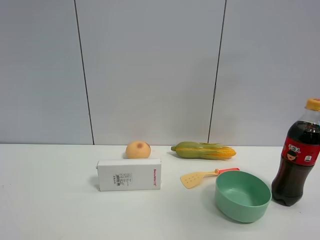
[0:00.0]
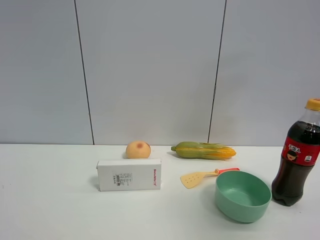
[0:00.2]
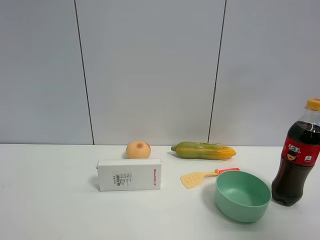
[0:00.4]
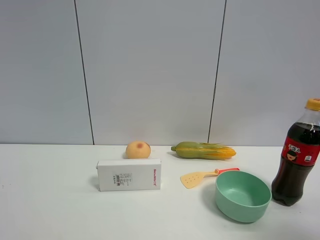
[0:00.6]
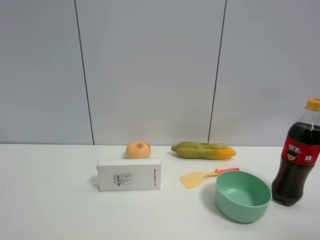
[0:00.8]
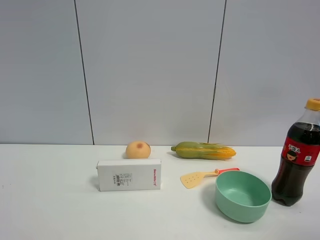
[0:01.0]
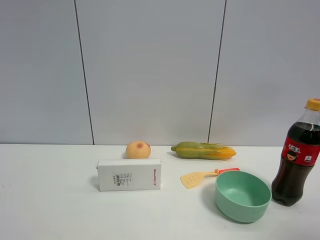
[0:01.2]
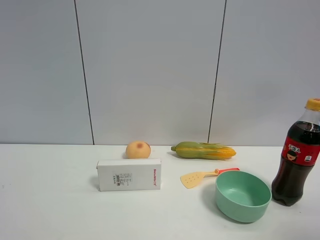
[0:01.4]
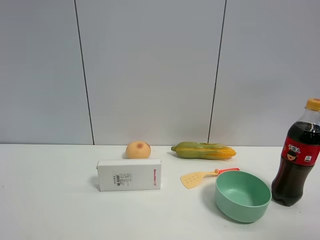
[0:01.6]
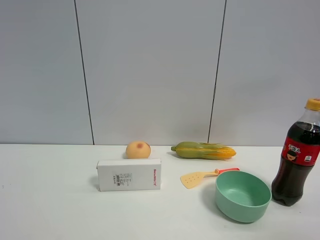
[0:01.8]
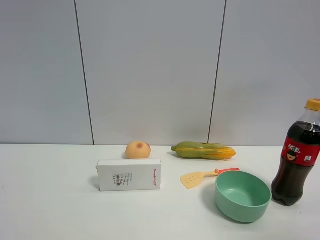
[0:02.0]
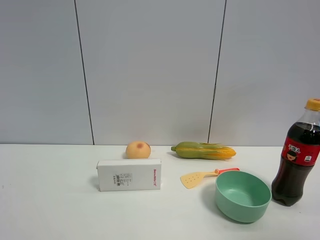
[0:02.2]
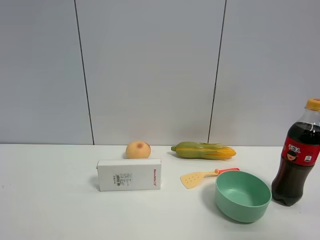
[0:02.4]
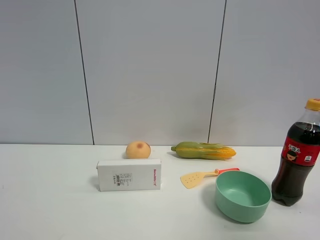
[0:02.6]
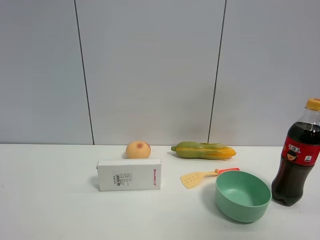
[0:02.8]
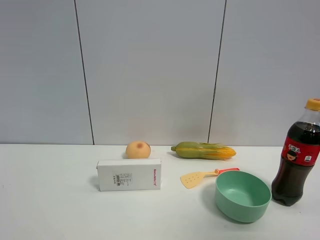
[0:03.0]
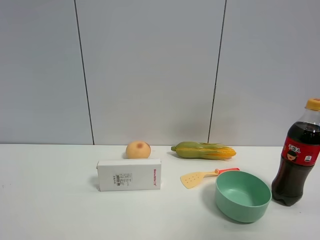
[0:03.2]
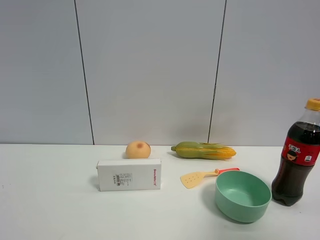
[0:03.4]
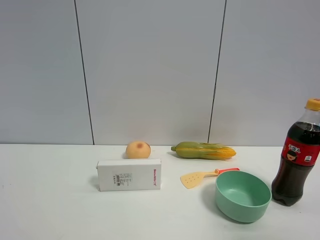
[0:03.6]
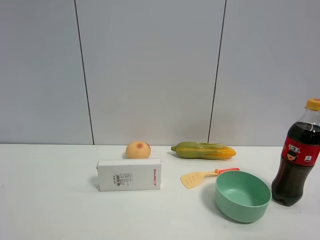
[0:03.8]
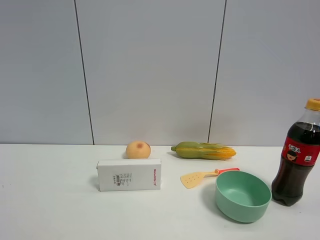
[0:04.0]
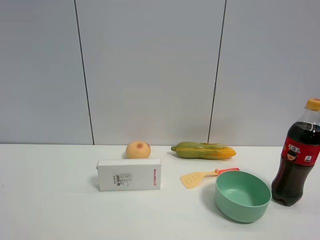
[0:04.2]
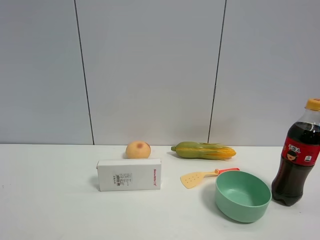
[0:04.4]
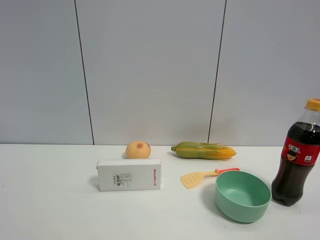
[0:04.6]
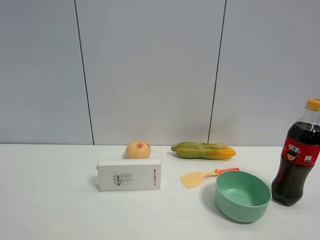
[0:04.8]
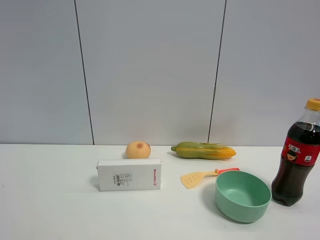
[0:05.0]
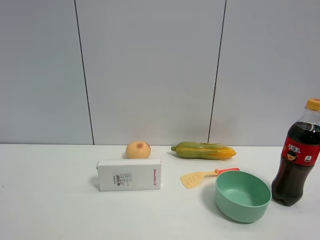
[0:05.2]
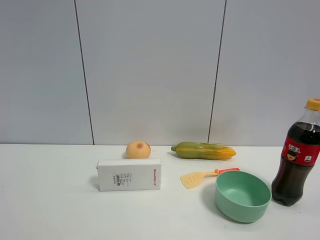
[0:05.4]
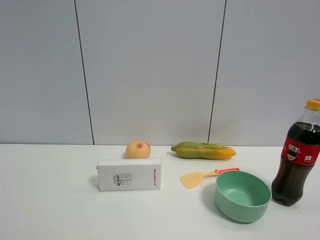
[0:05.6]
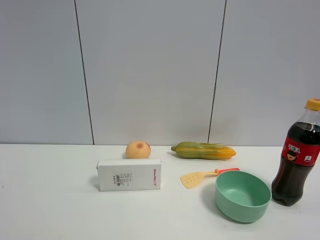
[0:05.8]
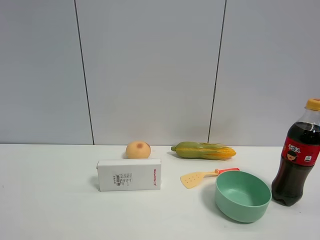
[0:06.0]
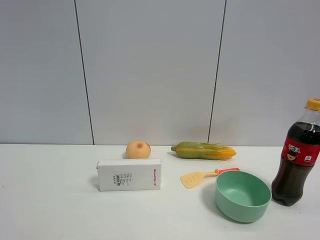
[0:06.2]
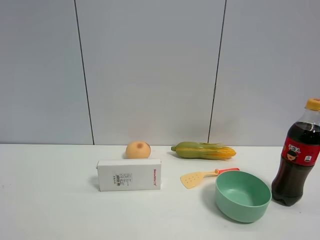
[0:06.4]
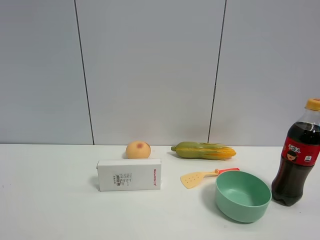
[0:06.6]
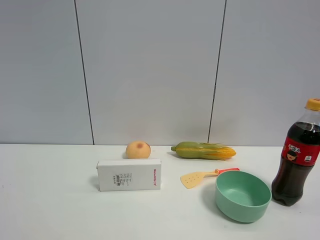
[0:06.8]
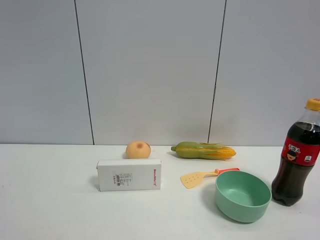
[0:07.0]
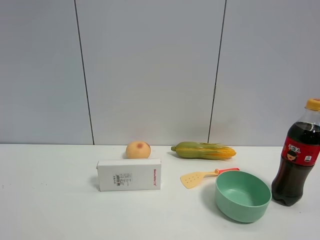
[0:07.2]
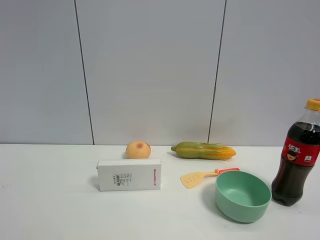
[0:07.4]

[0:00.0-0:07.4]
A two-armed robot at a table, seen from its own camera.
Task of the whole recording: the gripper move the object.
0:00.0 to 0:01.4: The right gripper goes some 20 cm to the right and backward, and closes.
0:01.4 to 0:03.0: The right gripper goes about 15 cm to the left, forward and downward.
0:03.0 to 0:04.4: The right gripper is displaced backward and downward by about 10 cm.
0:06.0 to 0:07.4: Both grippers stay put.

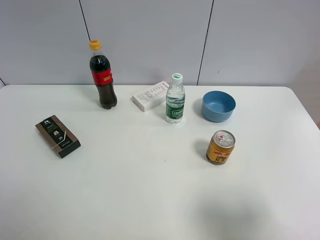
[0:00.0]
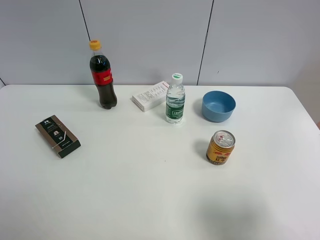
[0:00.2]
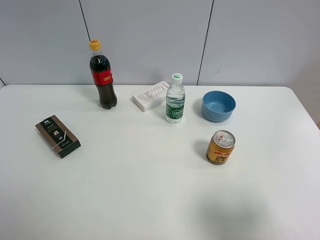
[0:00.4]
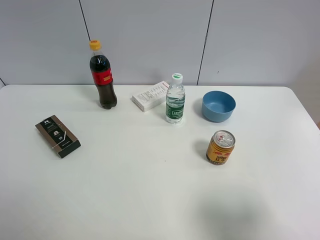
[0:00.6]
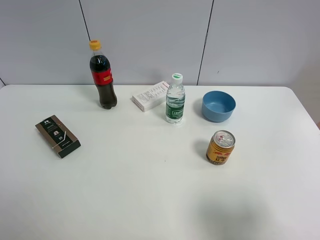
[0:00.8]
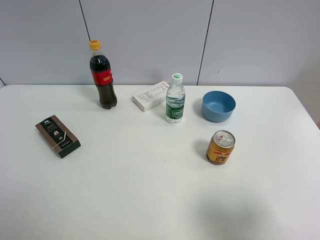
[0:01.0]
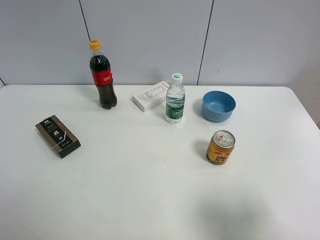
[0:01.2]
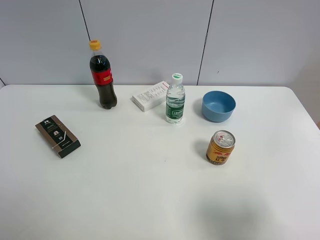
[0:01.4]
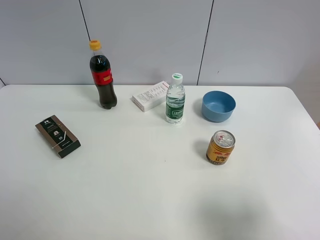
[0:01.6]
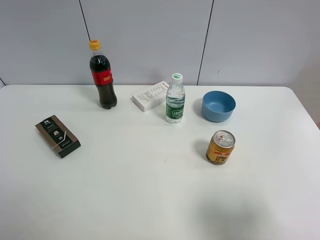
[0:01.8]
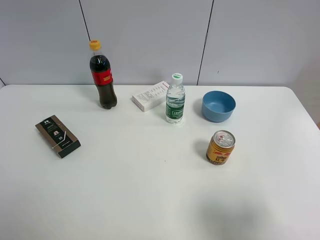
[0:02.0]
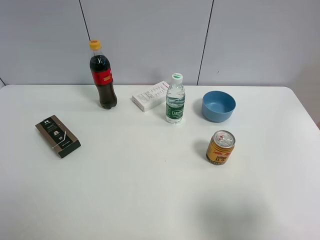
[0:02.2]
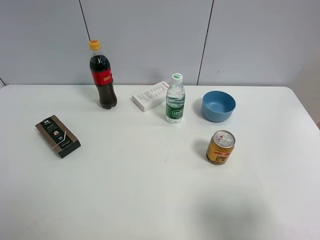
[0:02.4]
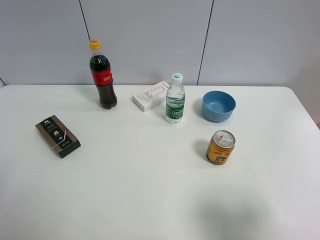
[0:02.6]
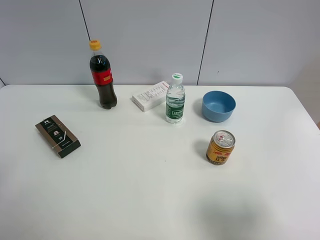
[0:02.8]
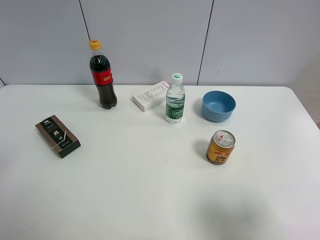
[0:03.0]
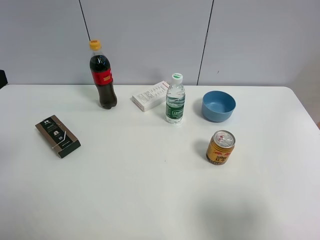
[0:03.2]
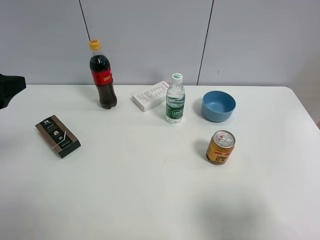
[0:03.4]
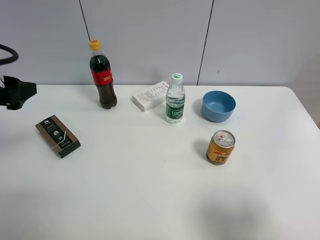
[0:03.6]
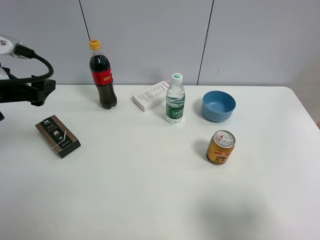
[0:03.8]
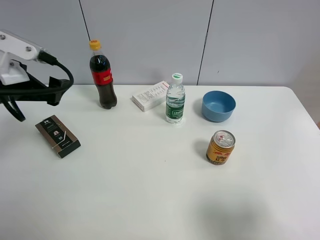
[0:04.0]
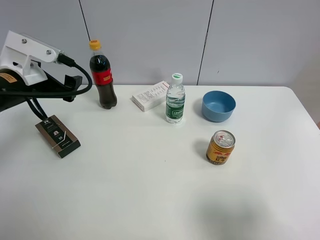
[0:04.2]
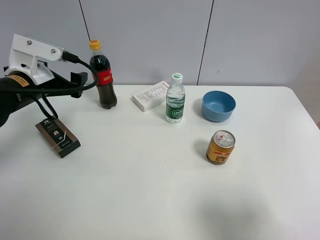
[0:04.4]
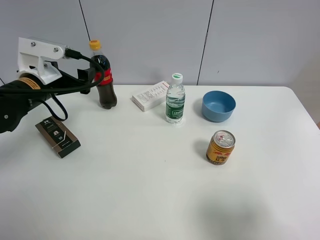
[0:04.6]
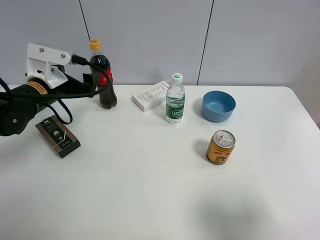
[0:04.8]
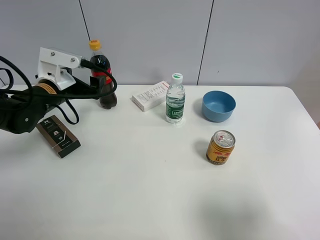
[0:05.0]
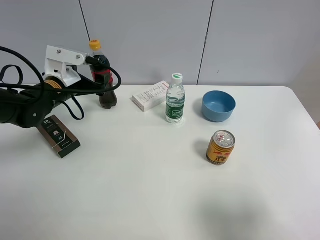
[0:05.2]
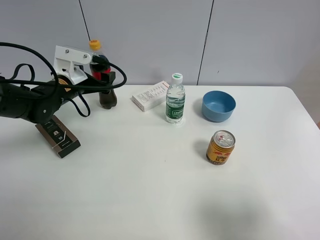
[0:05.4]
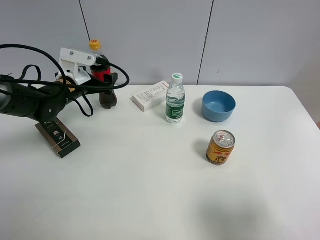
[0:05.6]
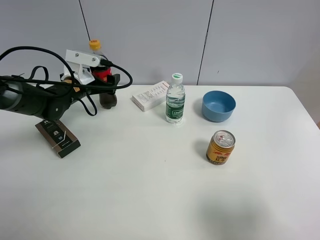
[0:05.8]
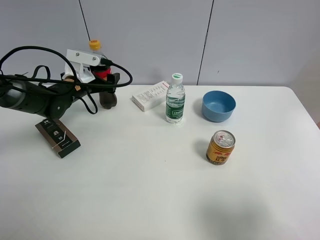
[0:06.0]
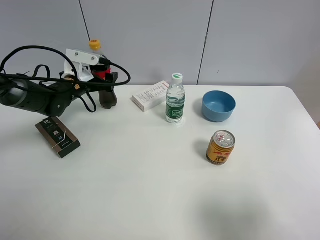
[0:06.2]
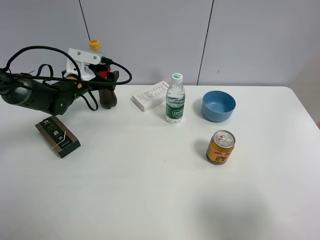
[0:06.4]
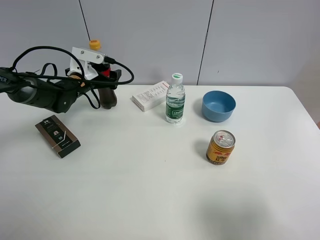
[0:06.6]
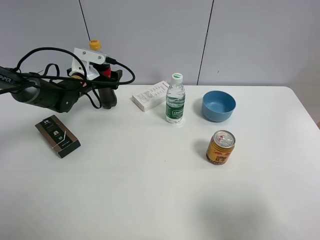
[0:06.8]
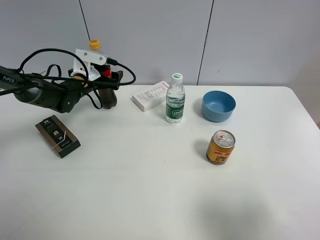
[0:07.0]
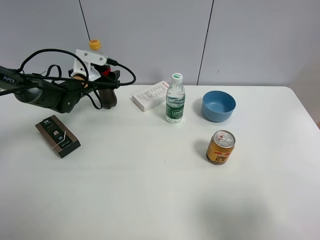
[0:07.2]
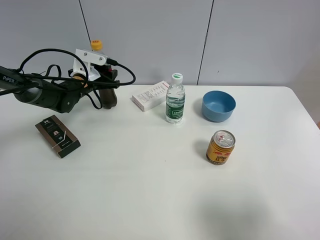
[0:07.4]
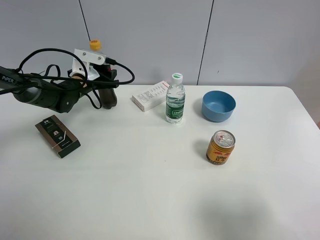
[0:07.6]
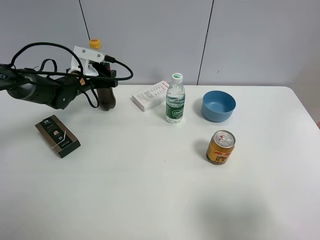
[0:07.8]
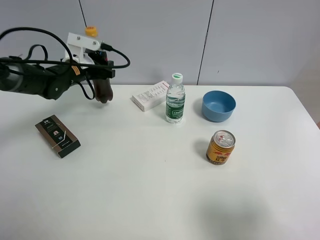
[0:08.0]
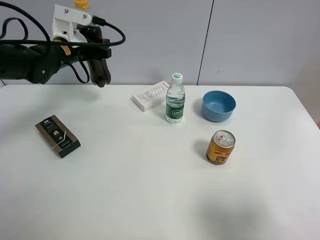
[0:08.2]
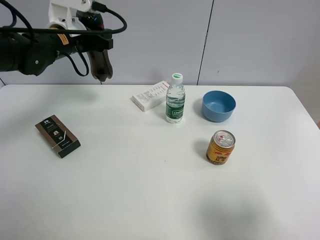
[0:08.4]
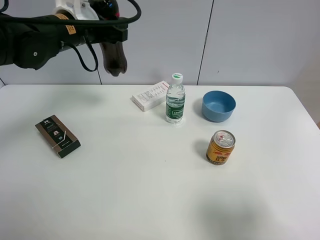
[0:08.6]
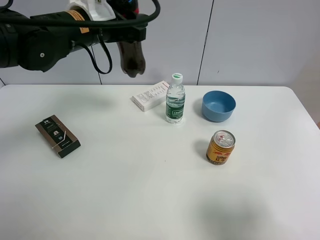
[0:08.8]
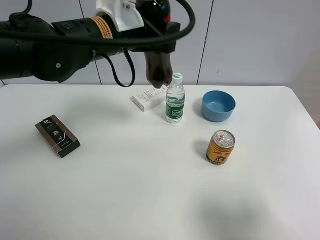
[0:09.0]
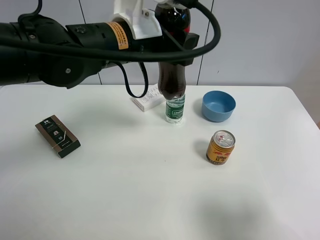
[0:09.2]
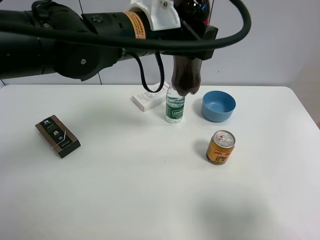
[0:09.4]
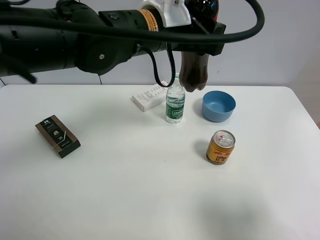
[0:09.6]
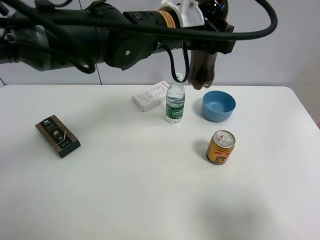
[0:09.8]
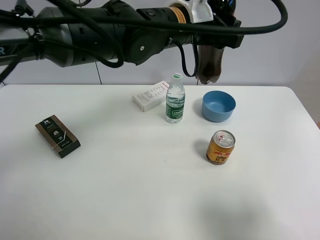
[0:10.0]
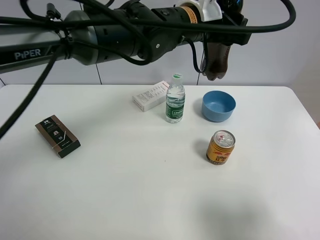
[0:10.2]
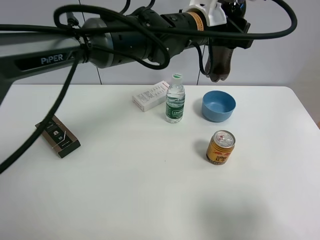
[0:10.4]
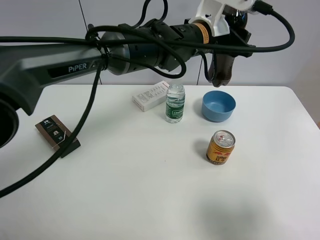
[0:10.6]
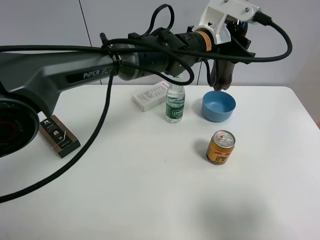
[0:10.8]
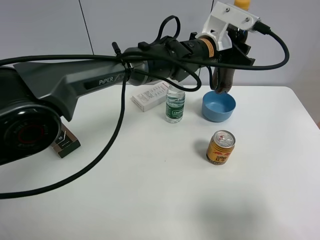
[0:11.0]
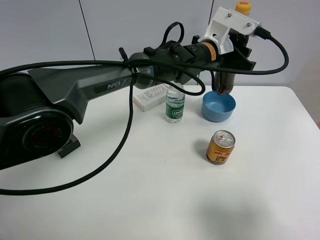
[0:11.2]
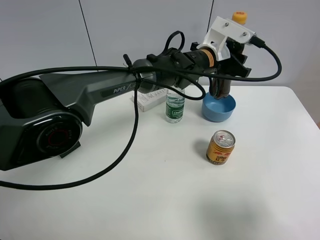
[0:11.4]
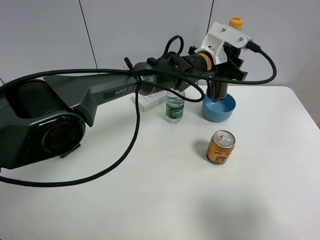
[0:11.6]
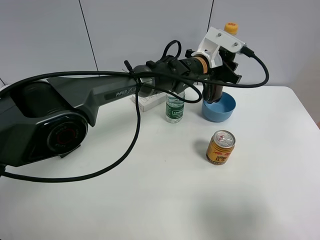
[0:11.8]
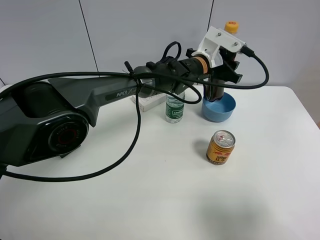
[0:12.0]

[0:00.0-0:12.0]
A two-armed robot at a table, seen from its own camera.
Task of the whole recording: the gripper move the object.
Step, 0:00.0 to 0:07.2: Grasp the coke with the left gripper.
0:00.0 to 0:01.6: Both grippers stay put.
0:03.0 to 0:04.4: The left gripper moves forward and downward, roughly 20 cm.
0:04.4 to 0:06.0: The left gripper is displaced forward and downward by about 15 cm.
0:06.0 to 0:07.6: The left gripper closes.
0:07.6 to 0:09.0: The left gripper heads upward, backward and to the right, covering some 30 cm.
0:09.0 to 0:10.4: The left gripper is displaced to the right and forward by roughly 15 cm.
0:10.4 to 0:12.0: The left gripper goes some 15 cm downward and forward.

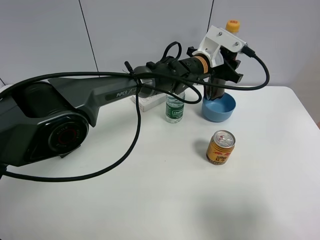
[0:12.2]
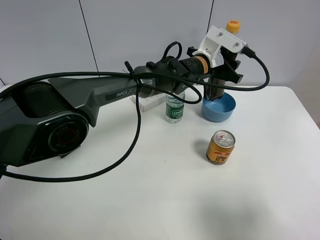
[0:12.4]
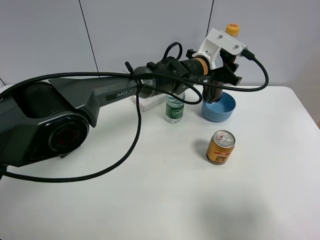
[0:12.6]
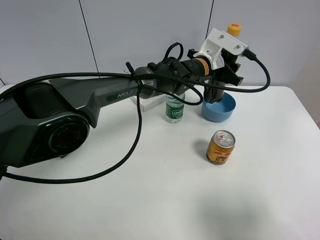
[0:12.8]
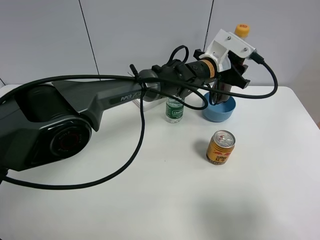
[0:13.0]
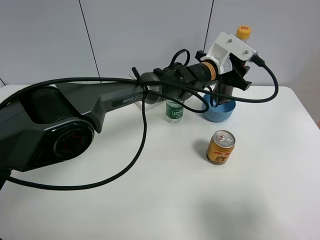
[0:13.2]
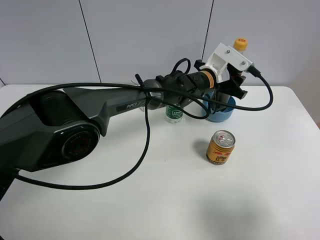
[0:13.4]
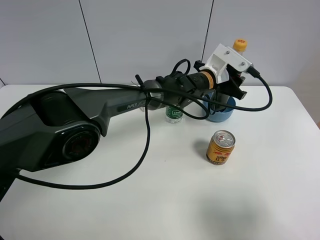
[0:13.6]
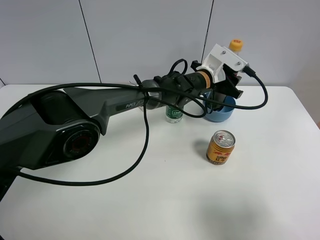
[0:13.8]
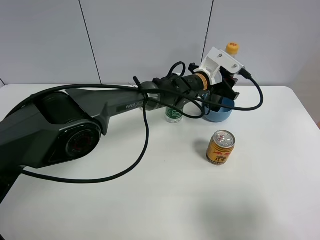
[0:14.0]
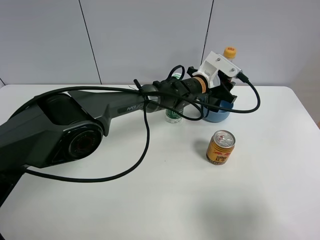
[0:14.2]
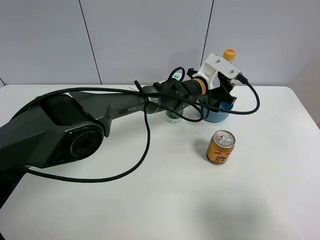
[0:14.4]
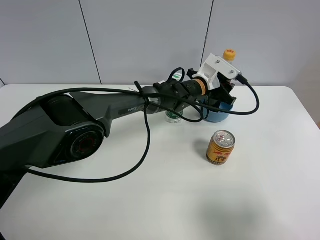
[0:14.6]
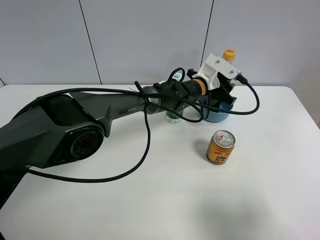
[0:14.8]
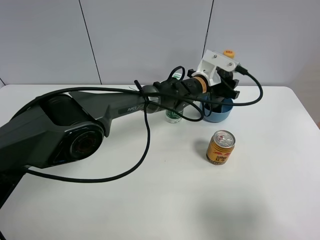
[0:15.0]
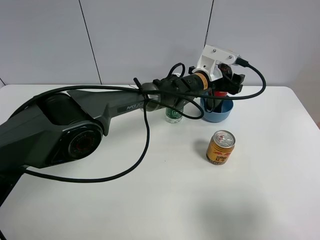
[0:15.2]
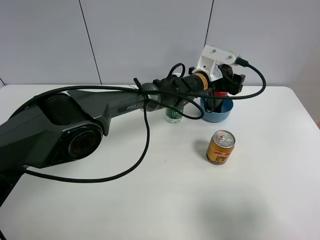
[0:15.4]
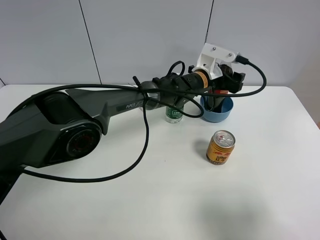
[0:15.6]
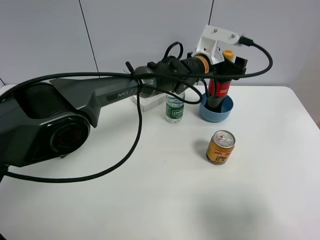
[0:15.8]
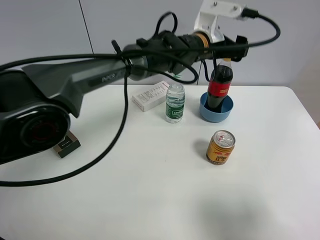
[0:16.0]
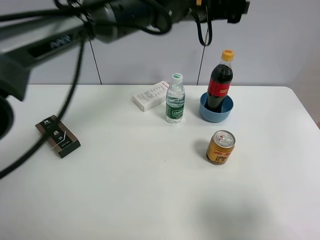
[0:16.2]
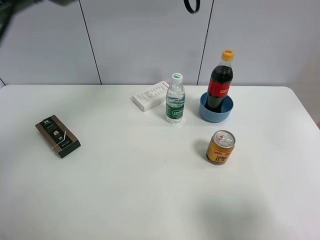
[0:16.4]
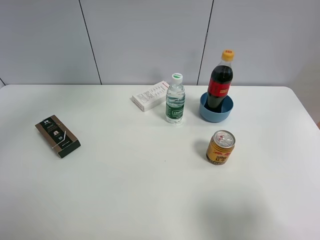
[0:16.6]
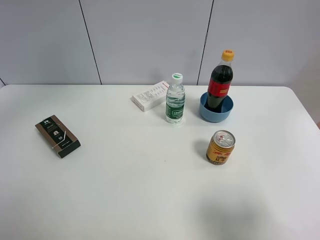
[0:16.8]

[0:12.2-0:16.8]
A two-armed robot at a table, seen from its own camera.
Task of the whole recording: the gripper move the object.
Step, 0:12.2 to 0:15.2: Place the coke into the blue bowl with the left gripper.
0:12.2 to 0:13.8: The grippers move only a little.
0:13.8 to 0:15.2: The left gripper opens.
0:15.2 to 0:16.8: The left gripper travels upward and to the left by approximately 40 cm.
